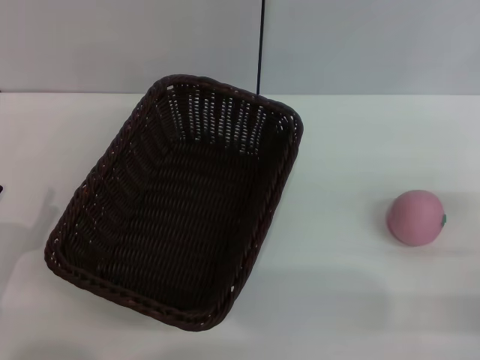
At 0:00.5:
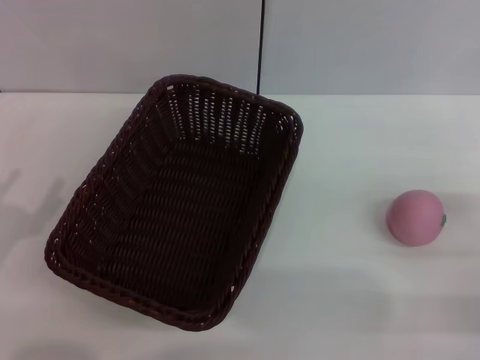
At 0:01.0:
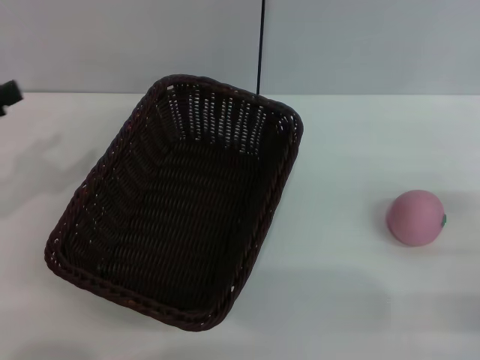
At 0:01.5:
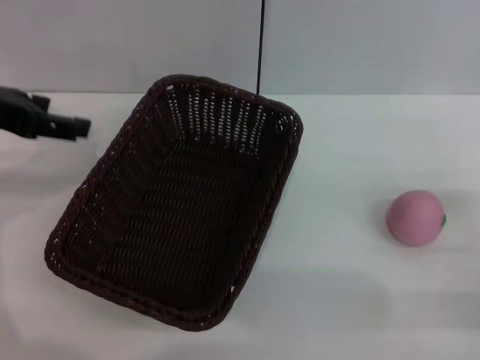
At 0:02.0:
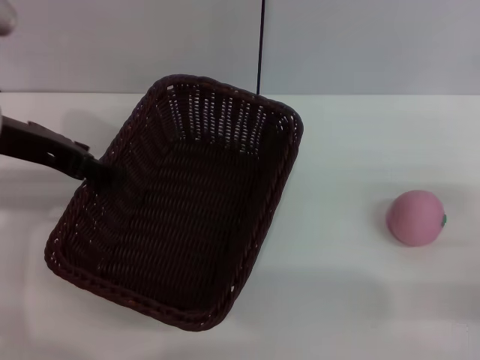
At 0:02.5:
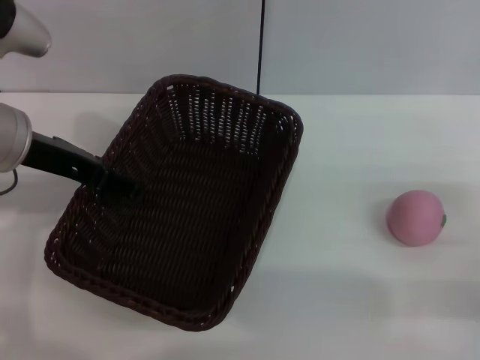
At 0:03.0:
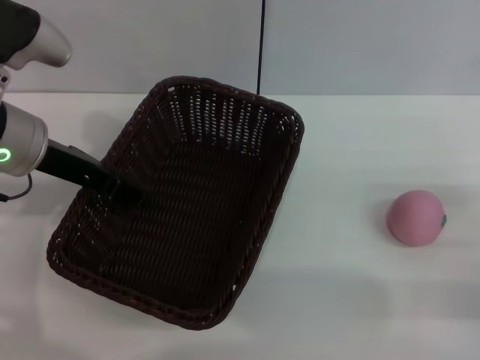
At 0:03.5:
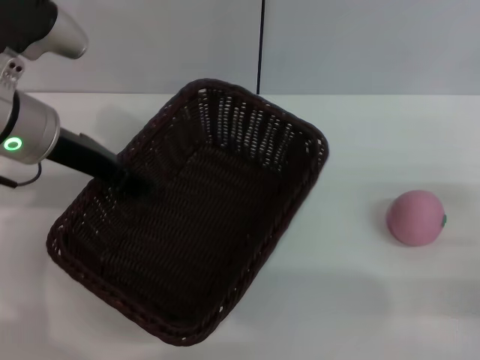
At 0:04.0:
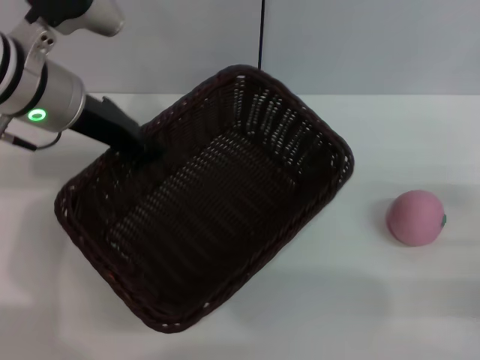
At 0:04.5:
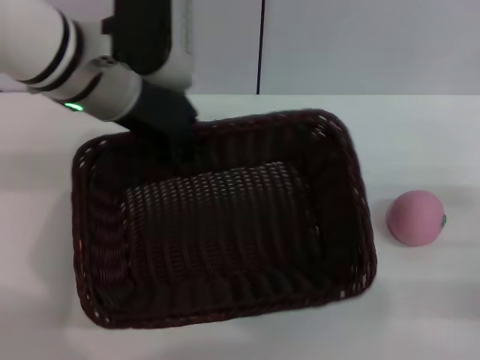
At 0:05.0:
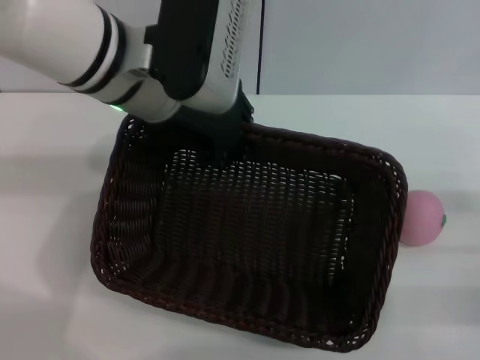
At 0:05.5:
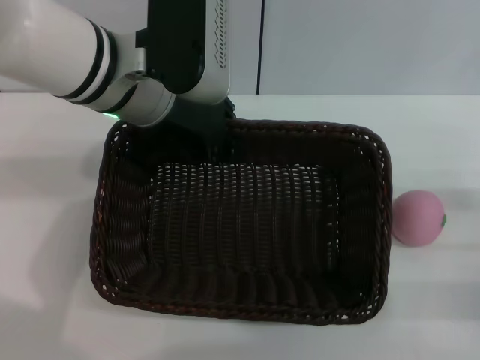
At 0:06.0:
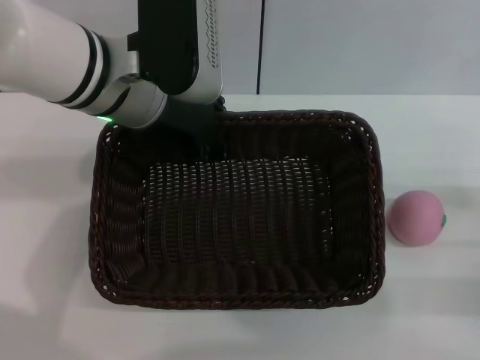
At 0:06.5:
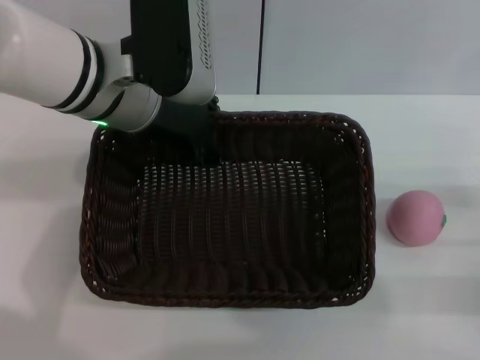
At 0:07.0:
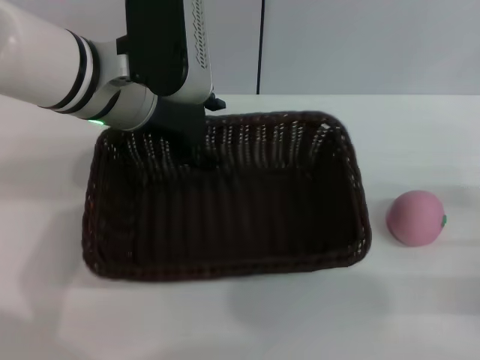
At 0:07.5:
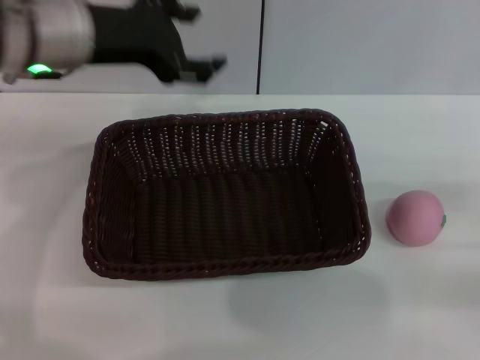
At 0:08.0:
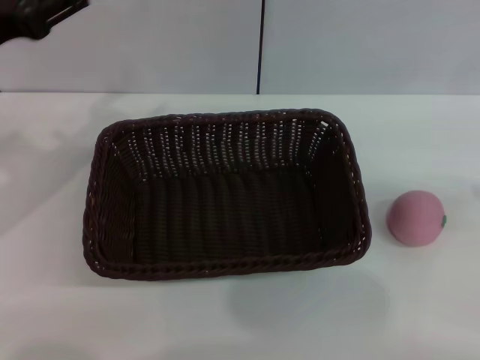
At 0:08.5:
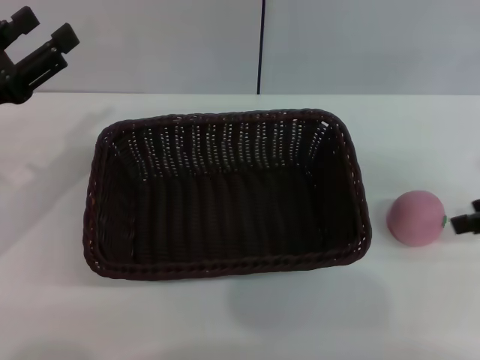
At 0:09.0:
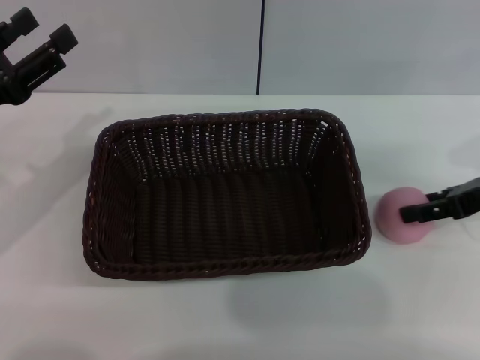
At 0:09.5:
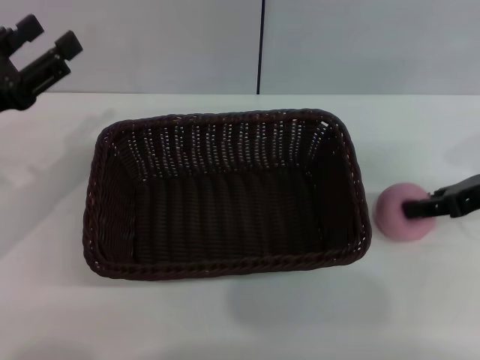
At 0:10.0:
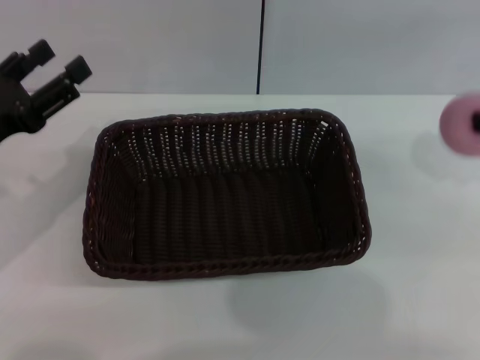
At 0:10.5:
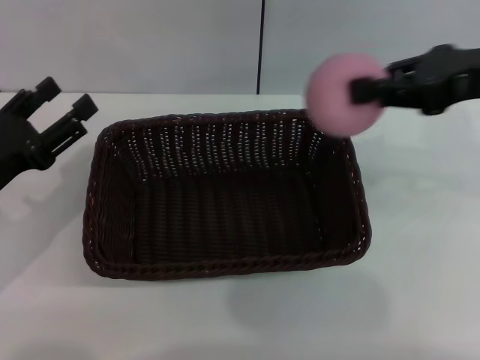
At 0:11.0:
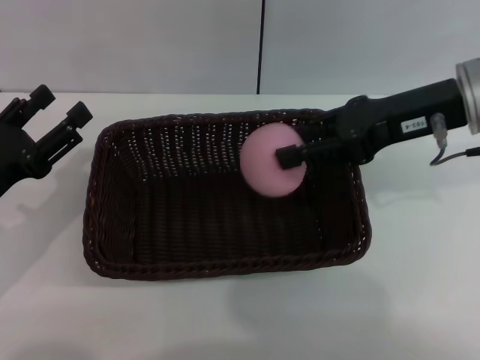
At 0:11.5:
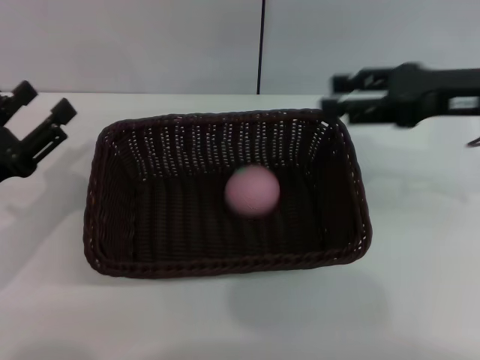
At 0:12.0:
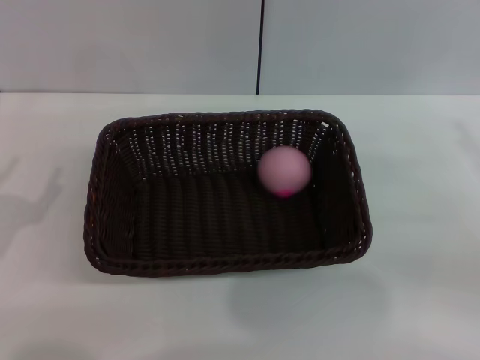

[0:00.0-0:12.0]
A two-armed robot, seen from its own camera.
Step, 0:00.0 to 0:04.0: Pick up the dark basket with the left gripper.
Step, 0:04.5 to 0:07.0: Place the dark basket in the center of view with the right gripper.
Step, 0:07.5 to 0:10.0: Pick up the peach with the left gripper.
Step, 0:10.5 to 0:11.0: Place the peach into the basket with the left gripper.
0:00.0 to 0:02.0: The left gripper moves upward and forward, approximately 25 cm.
0:02.0 to 0:04.0: The left gripper travels to the right by approximately 5 cm, and closes.
0:04.0 to 0:06.0: The left gripper shifts approximately 5 cm to the right.
0:06.0 to 0:08.0: The right gripper shifts roughly 15 cm upward and to the right, while the left gripper heads to the left, covering approximately 15 cm, and opens its fingers.
0:08.0 to 0:10.0: The right gripper goes about 10 cm to the left and forward, and closes its fingers; the left gripper shifts approximately 5 cm downward.
0:10.0 to 0:12.0: The right gripper moves downward and backward, roughly 10 cm, reaches about 15 cm to the left, then returns, and opens up. The left gripper moves backward and downward, approximately 10 cm.

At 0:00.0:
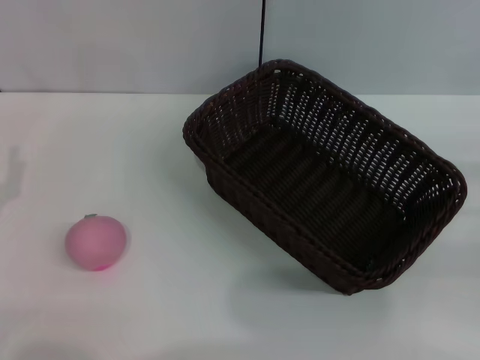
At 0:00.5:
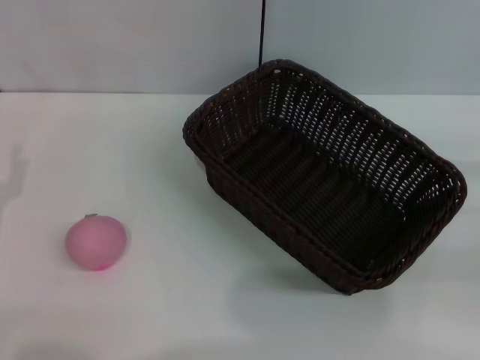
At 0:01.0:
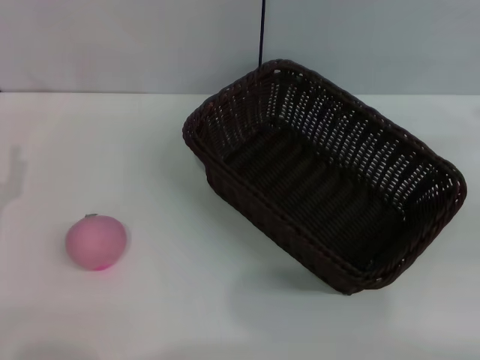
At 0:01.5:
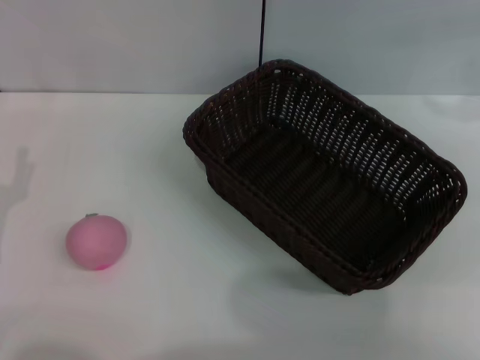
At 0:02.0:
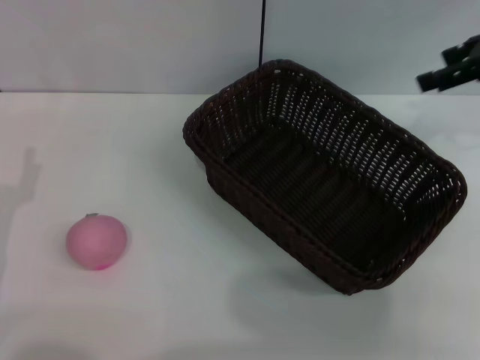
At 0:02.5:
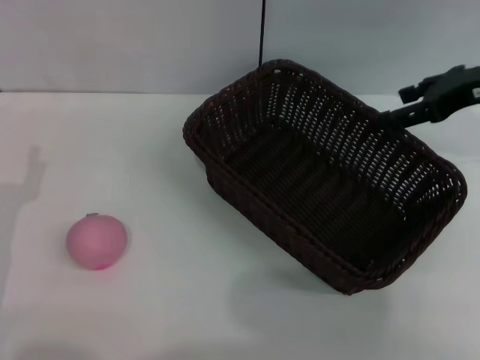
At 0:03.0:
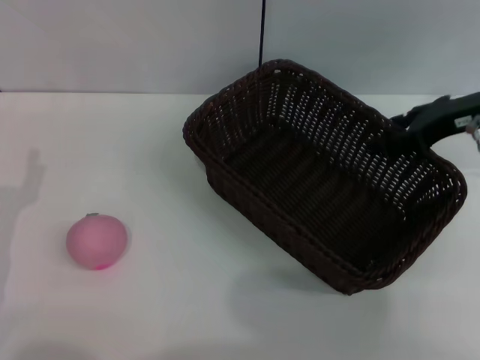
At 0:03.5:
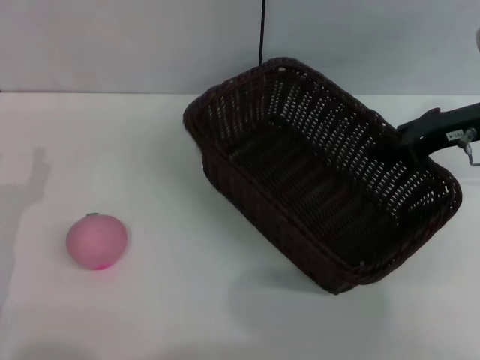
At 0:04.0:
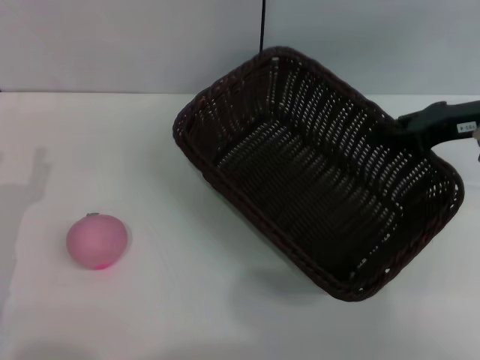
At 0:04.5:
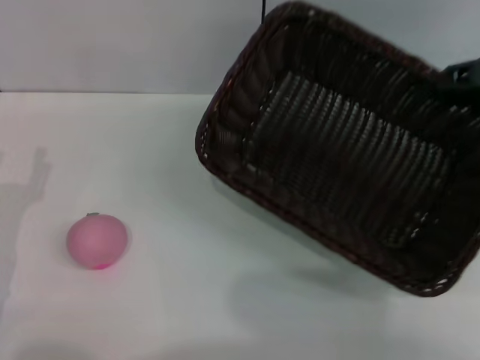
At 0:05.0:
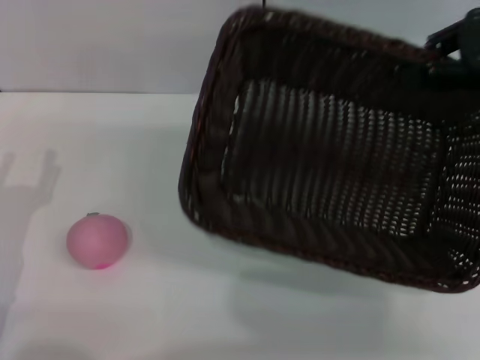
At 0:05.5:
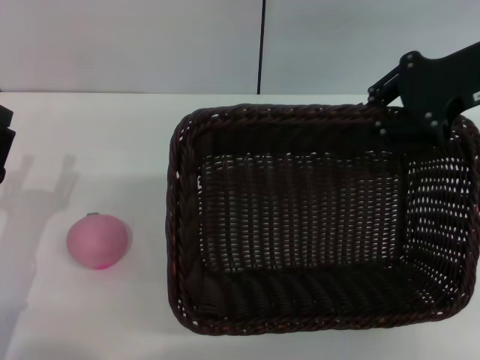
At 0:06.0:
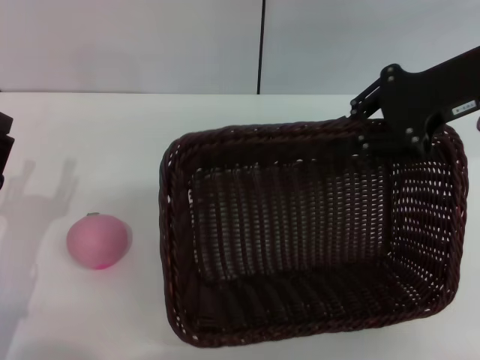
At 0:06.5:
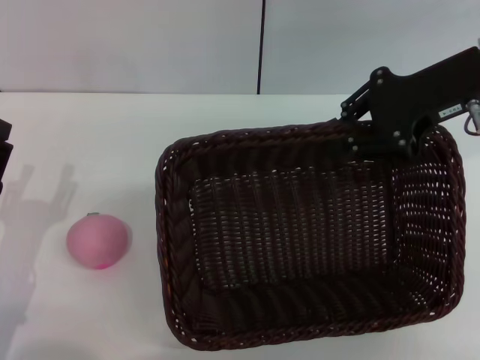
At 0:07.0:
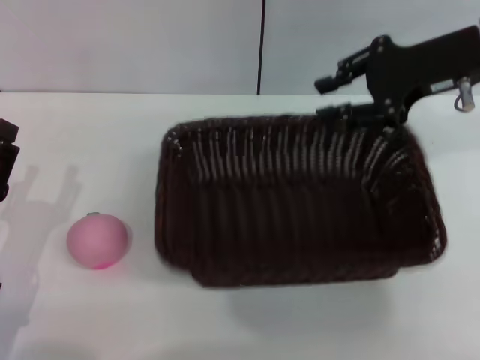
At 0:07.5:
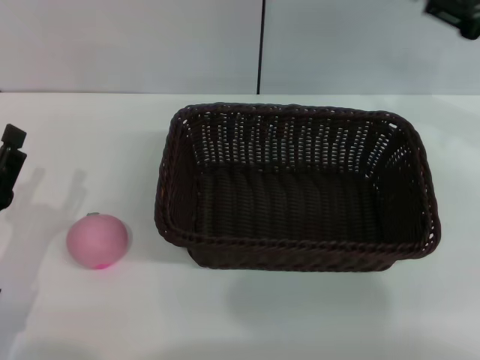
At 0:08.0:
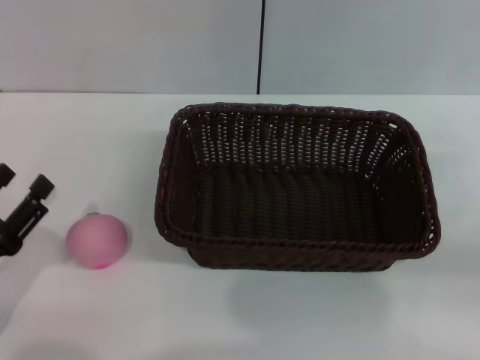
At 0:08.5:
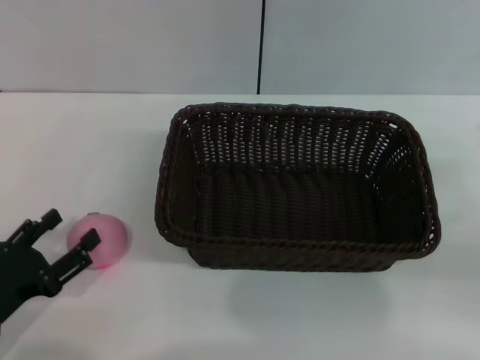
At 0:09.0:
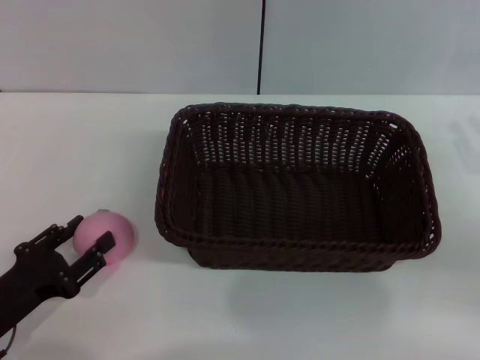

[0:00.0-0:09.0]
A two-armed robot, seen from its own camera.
Step, 0:00.0 to 0:04.0: Pick up the dark basket with the right gripper.
Step, 0:04.5 to 0:07.0: Place the dark basket in the center of view with the right gripper.
0:00.0 to 0:02.0: The right gripper moves upward, forward and to the left, approximately 25 cm.
0:02.0 to 0:04.5: The right gripper travels downward and back again, some 10 cm each way, and closes.
0:04.5 to 0:07.0: The right gripper travels to the left by approximately 10 cm.
0:07.0 to 0:09.0: The right gripper moves backward, downward and to the right, roughly 20 cm.

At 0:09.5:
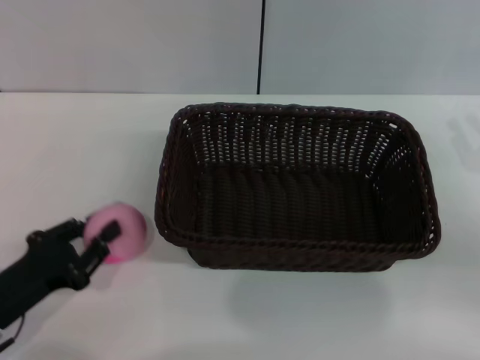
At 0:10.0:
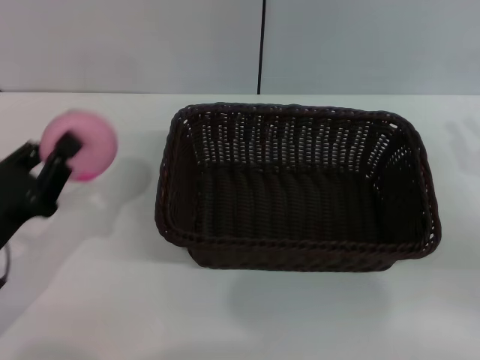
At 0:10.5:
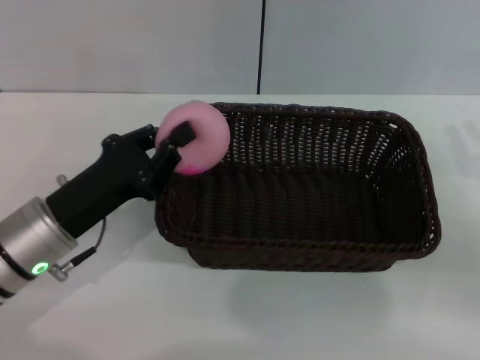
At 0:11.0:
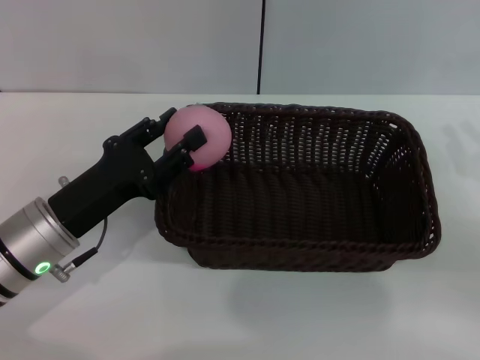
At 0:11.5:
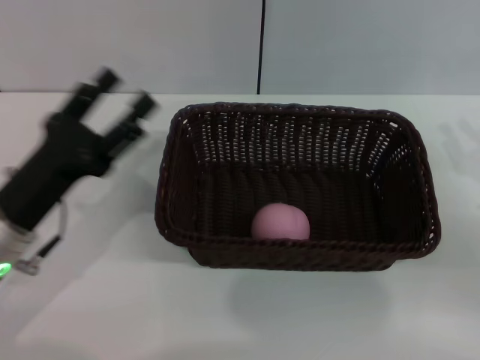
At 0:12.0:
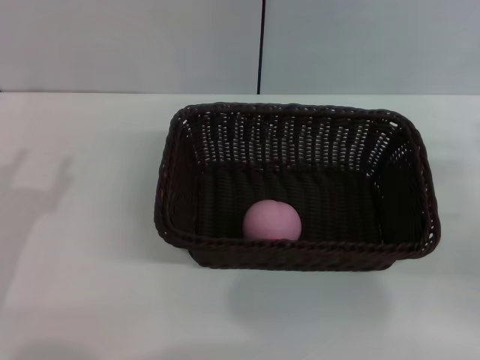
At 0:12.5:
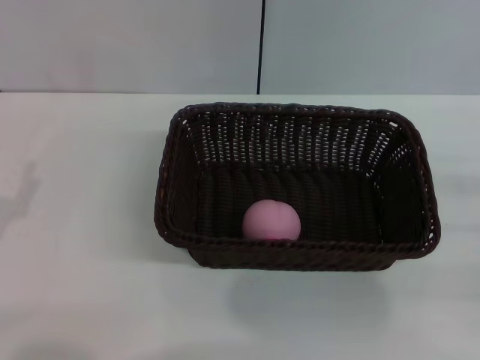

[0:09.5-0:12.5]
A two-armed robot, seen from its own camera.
Step, 0:10.5 to 0:11.0: Place the peach into the basket with the left gripper.
0:09.5 to 0:11.0: The left gripper is displaced forward and to the right by approximately 10 cm.
0:11.0 to 0:12.5: The left gripper goes roughly 15 cm to the left and backward, and opens its fingers. Meanwhile the right gripper is displaced to the right by about 5 cm.

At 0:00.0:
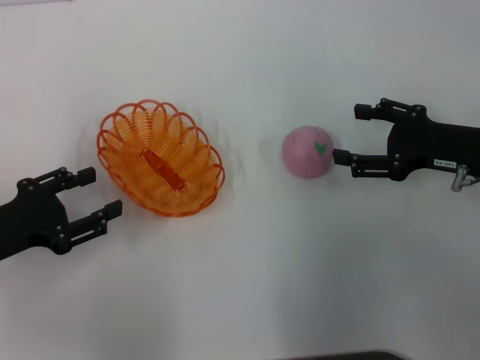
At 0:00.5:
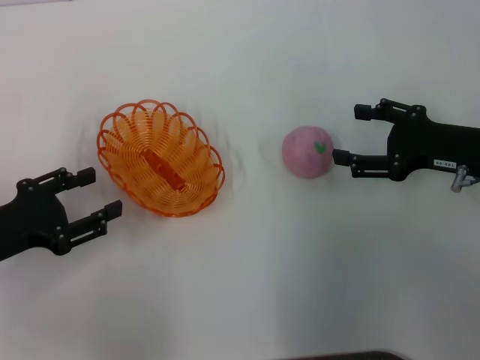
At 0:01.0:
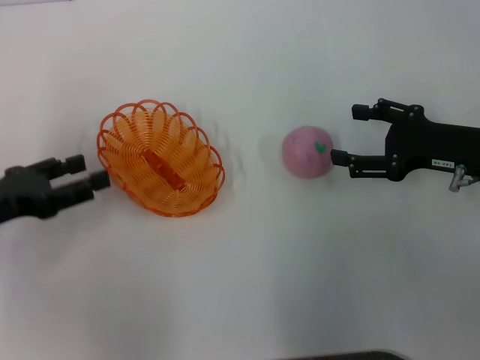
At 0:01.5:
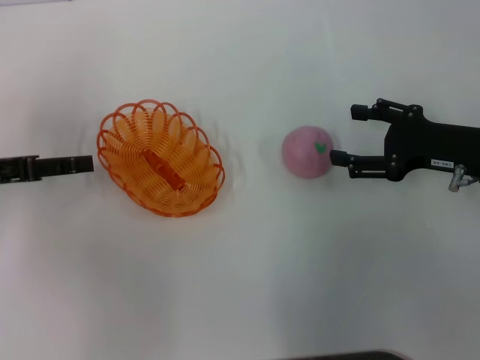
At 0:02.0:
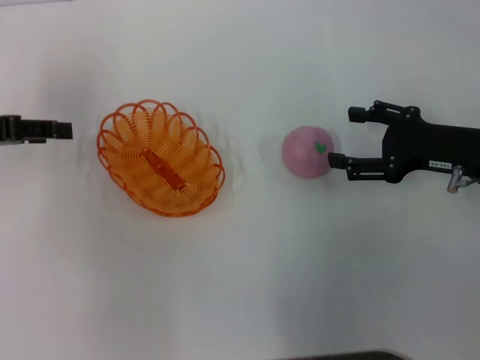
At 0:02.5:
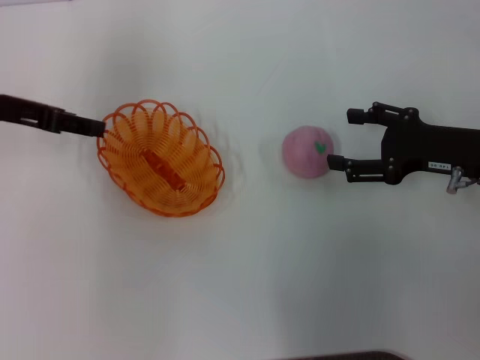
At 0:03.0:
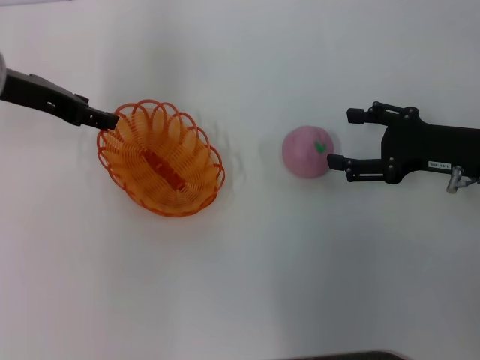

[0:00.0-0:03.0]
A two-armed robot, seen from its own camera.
0:00.0 to 0:01.5: The left gripper travels forward by roughly 5 cm.
0:01.5 to 0:03.0: The left gripper moves forward, to the right and upward, roughly 15 cm.
